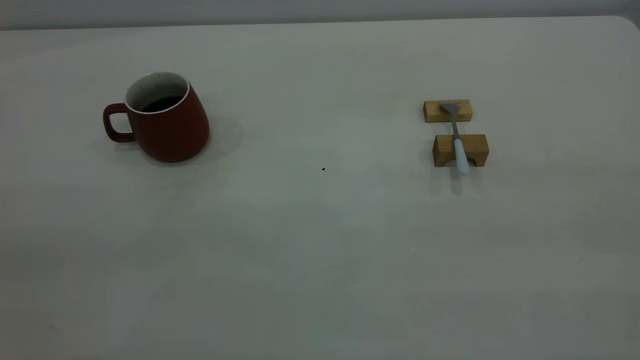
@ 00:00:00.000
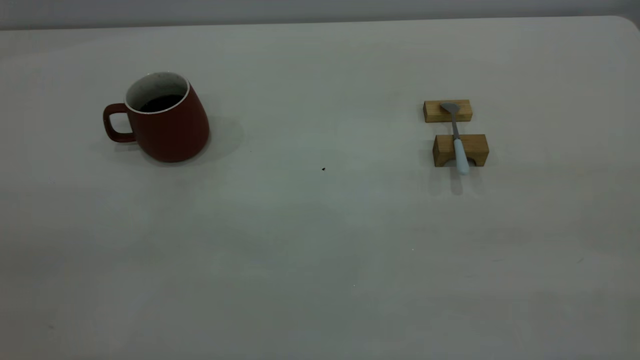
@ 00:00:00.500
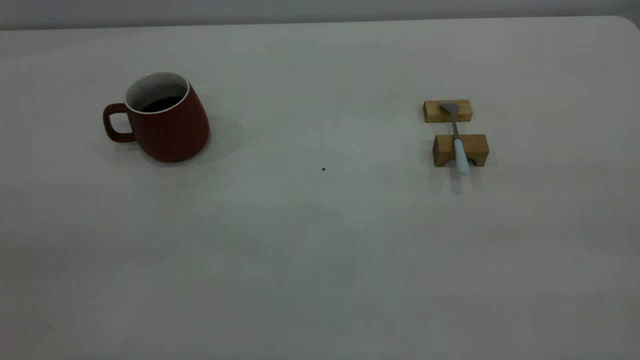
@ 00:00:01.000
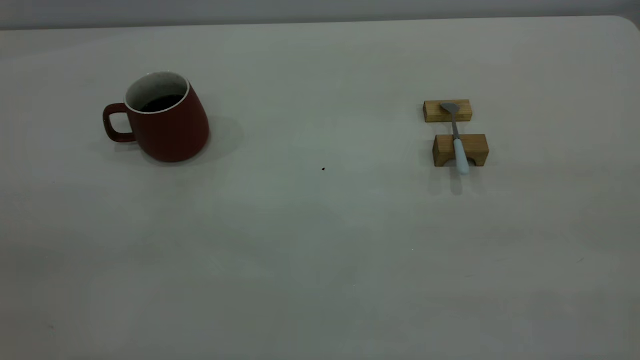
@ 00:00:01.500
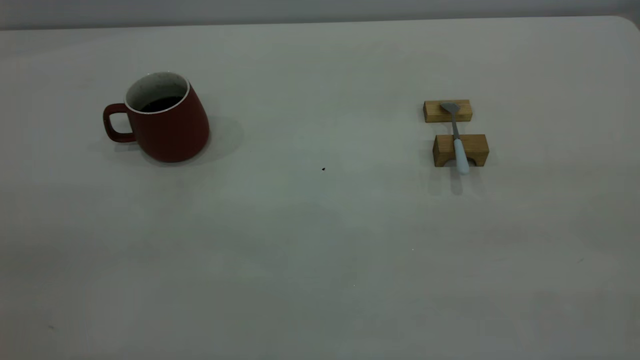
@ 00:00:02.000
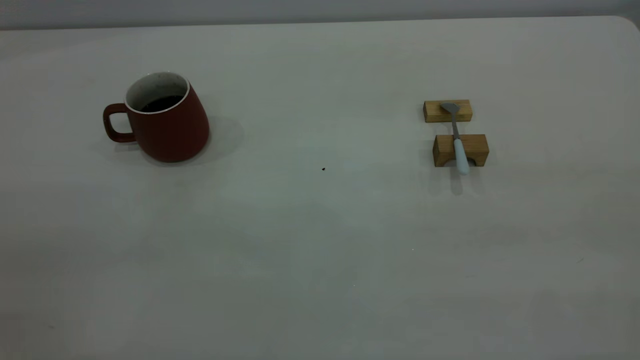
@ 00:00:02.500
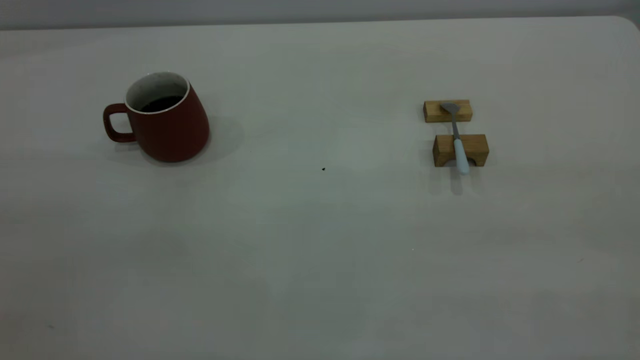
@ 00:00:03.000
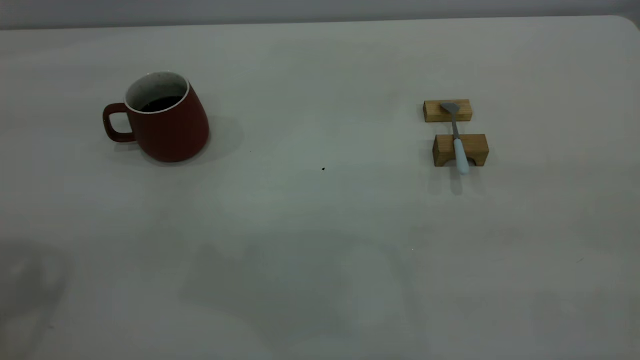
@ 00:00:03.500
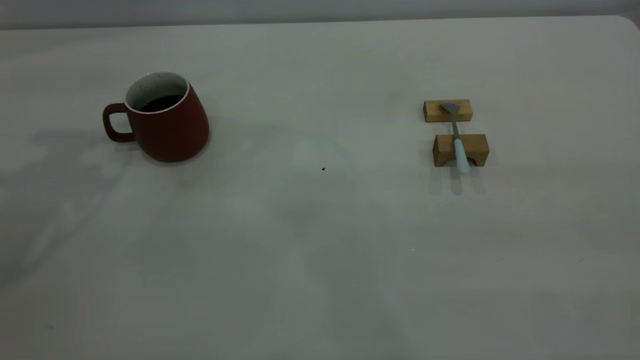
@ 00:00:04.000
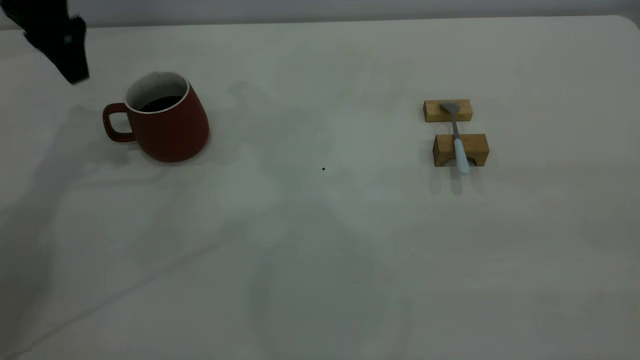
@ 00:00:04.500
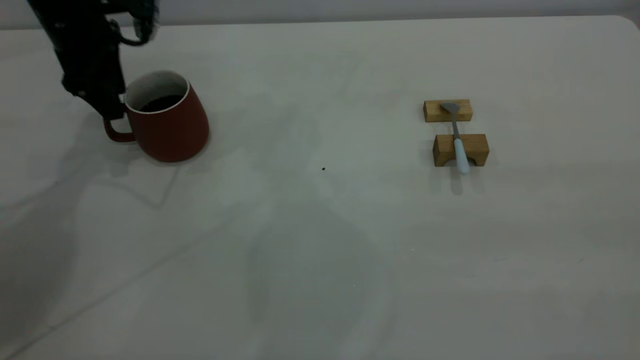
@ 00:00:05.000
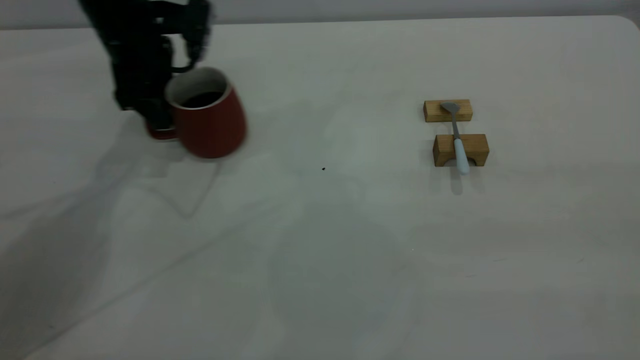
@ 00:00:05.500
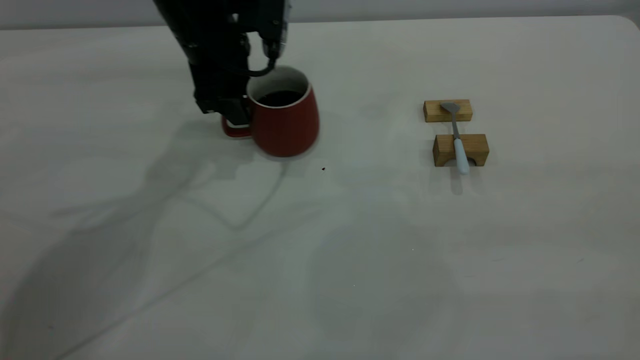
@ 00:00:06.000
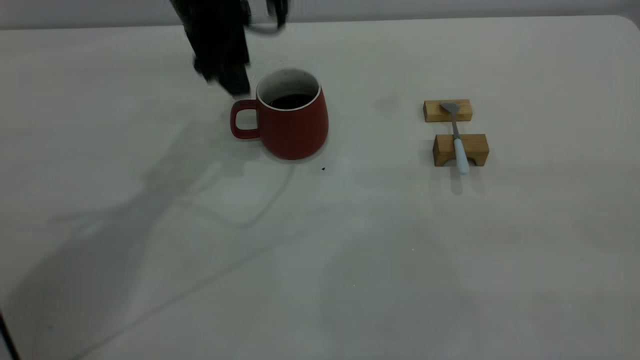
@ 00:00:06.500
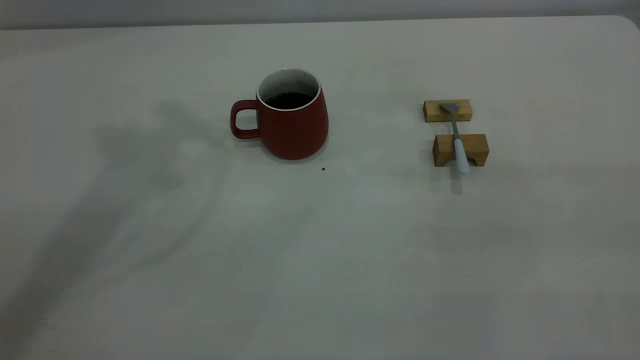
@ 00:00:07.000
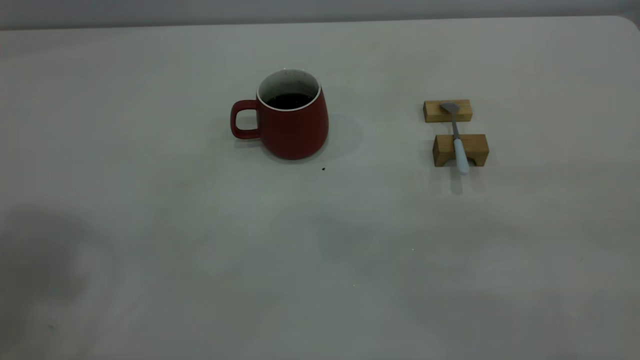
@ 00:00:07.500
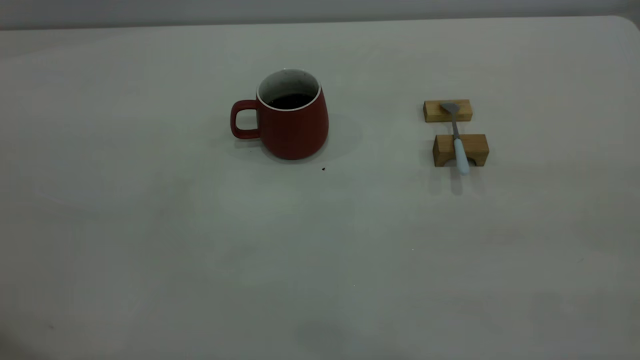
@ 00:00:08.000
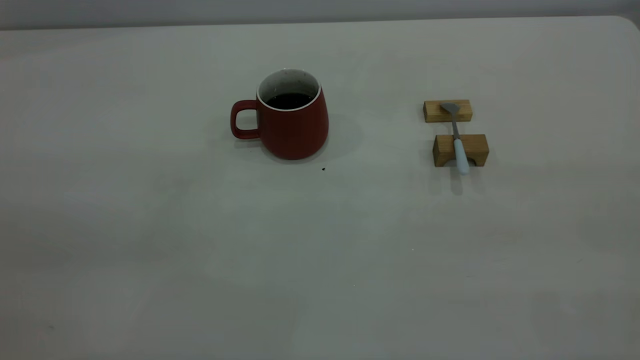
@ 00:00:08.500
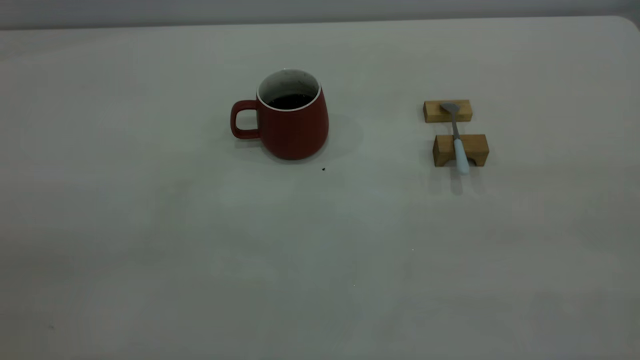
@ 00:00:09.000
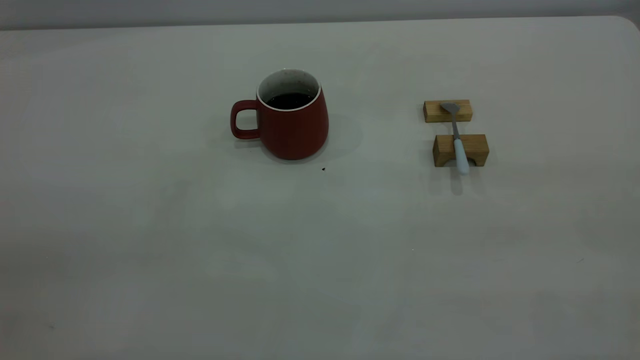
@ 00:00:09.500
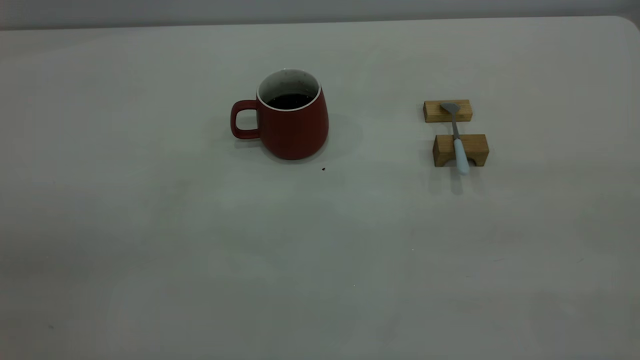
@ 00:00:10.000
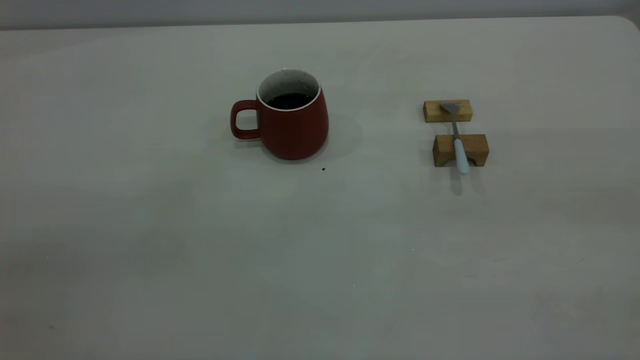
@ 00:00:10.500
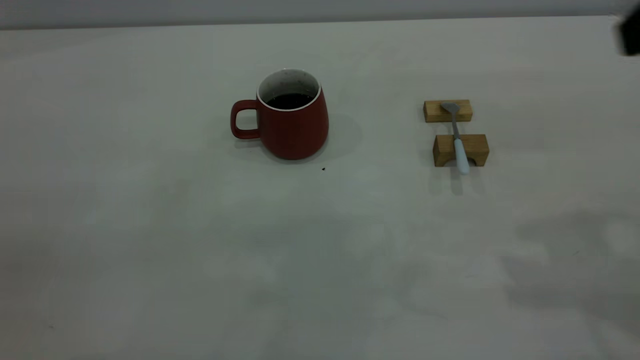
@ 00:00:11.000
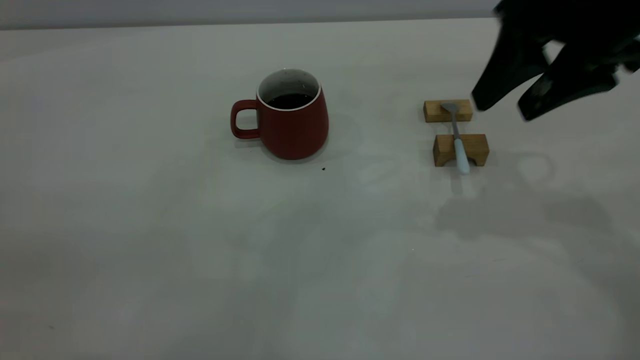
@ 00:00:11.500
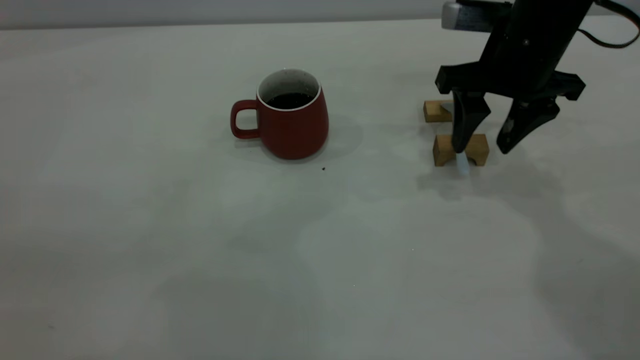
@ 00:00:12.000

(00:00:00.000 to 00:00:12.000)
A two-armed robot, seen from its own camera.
Step, 00:00:00.000 - 00:00:06.500: Move the cup with coffee to the center of view.
00:00:00.000 - 00:00:02.000: The two grippers keep their place.
00:00:04.000 - 00:00:06.000: The left gripper goes some 25 cm to the right, downward and forward.
00:00:06.000 - 00:00:08.000: The left gripper moves backward and upward, about 40 cm.
00:00:10.000 - 00:00:12.000: The right gripper is displaced forward and downward by roughly 40 cm, and opens.

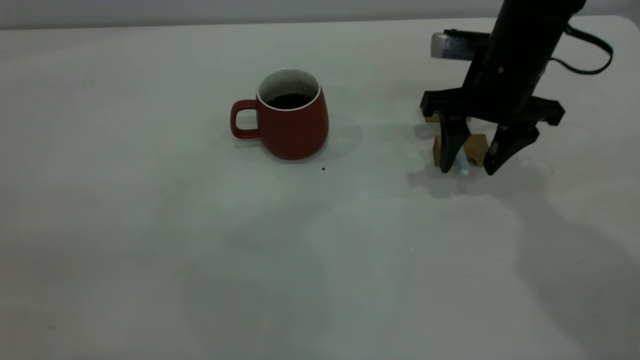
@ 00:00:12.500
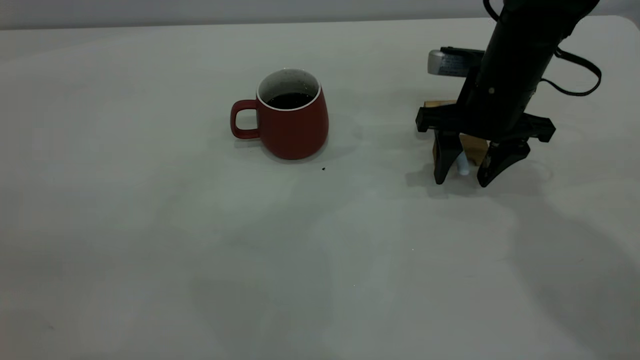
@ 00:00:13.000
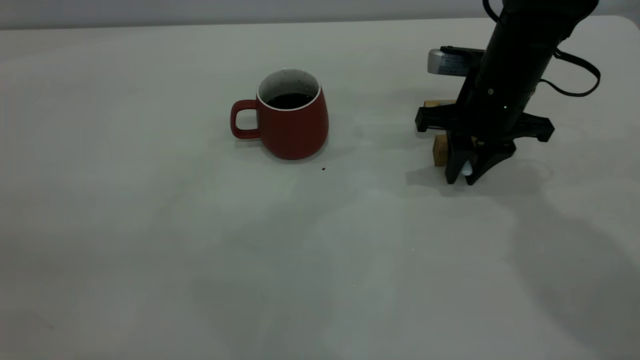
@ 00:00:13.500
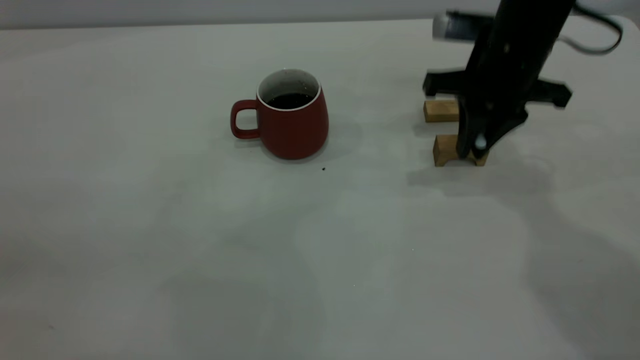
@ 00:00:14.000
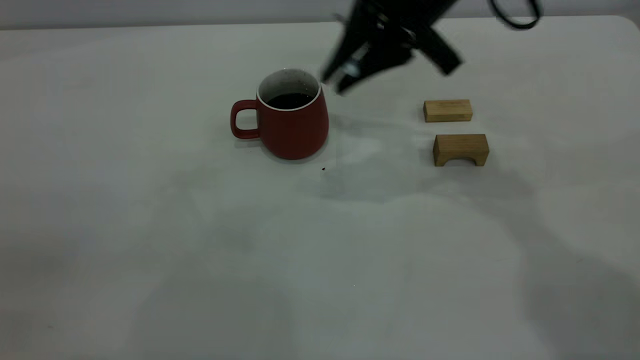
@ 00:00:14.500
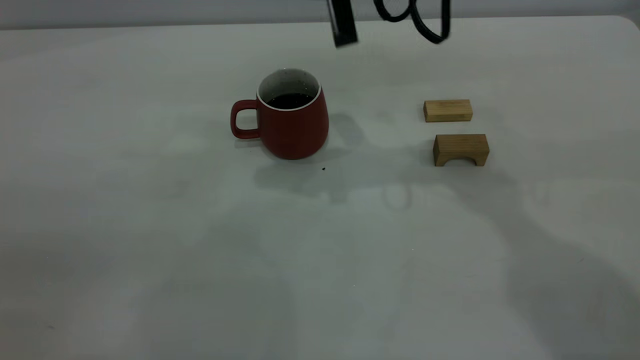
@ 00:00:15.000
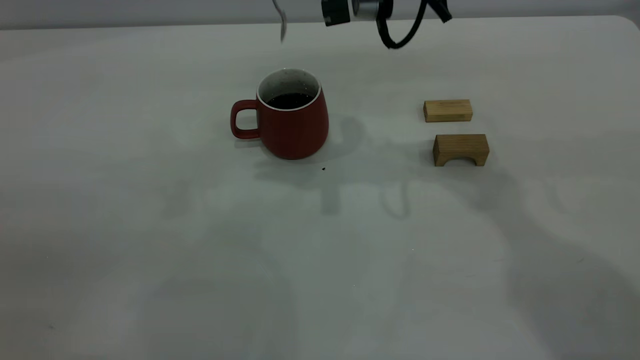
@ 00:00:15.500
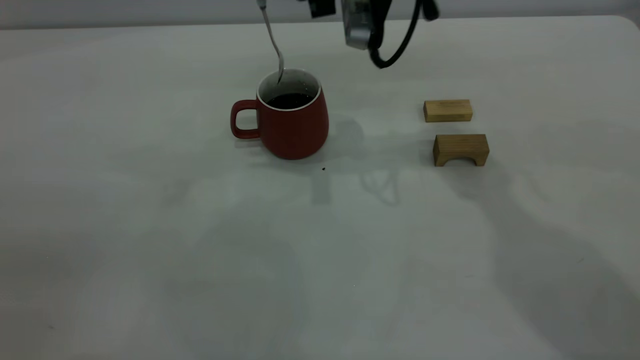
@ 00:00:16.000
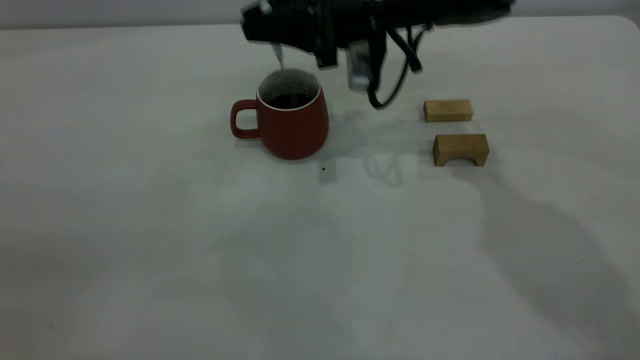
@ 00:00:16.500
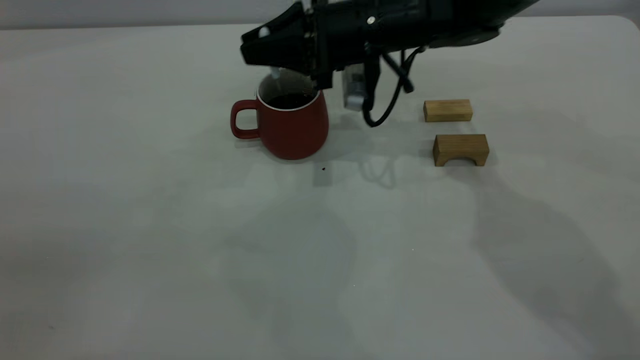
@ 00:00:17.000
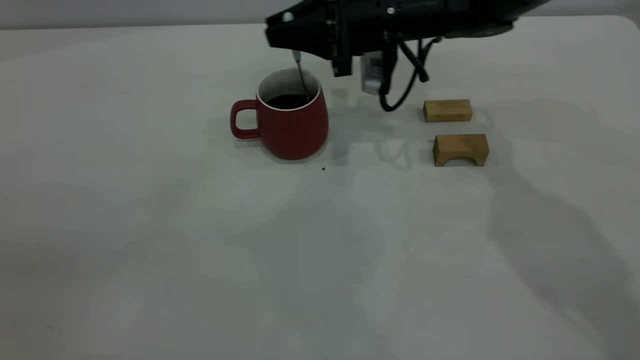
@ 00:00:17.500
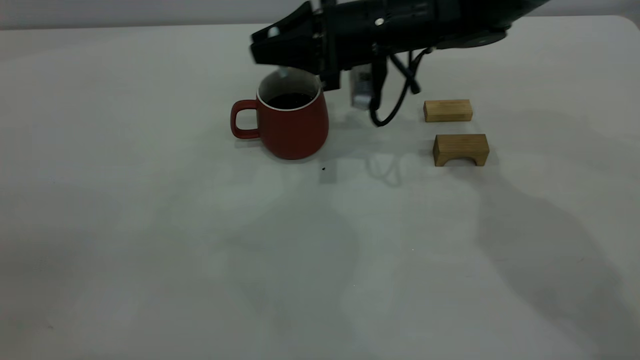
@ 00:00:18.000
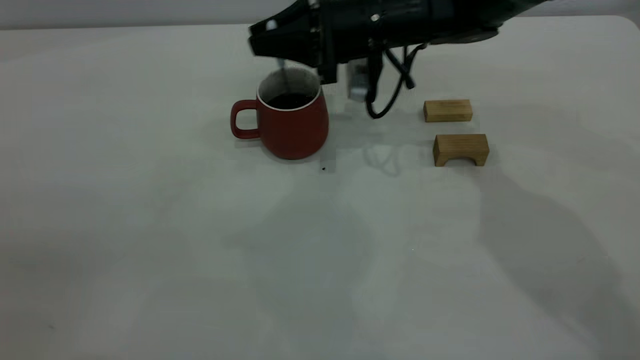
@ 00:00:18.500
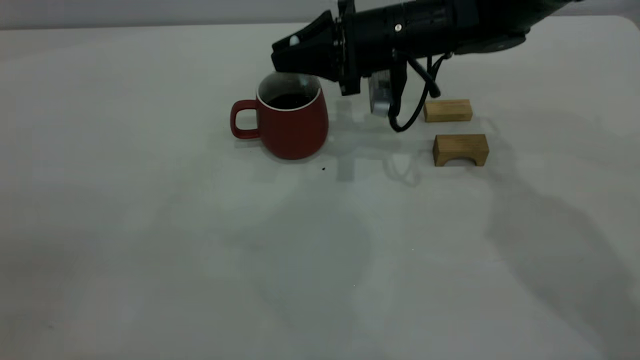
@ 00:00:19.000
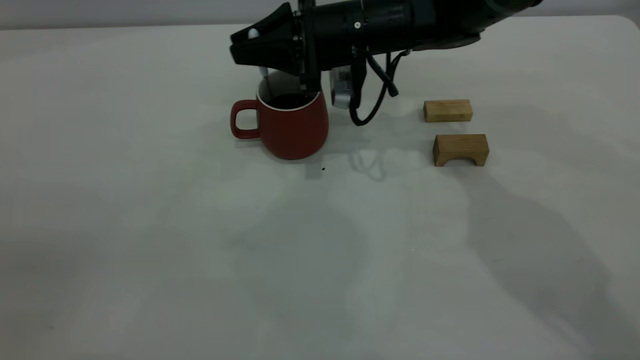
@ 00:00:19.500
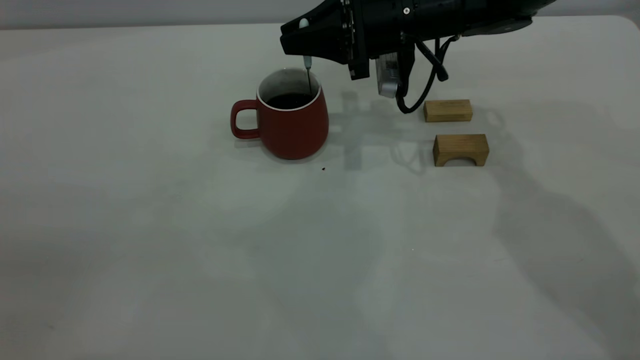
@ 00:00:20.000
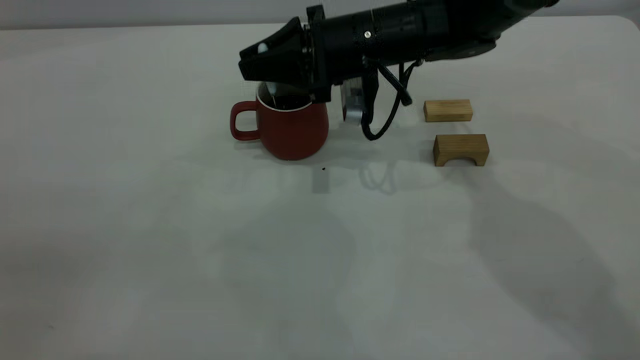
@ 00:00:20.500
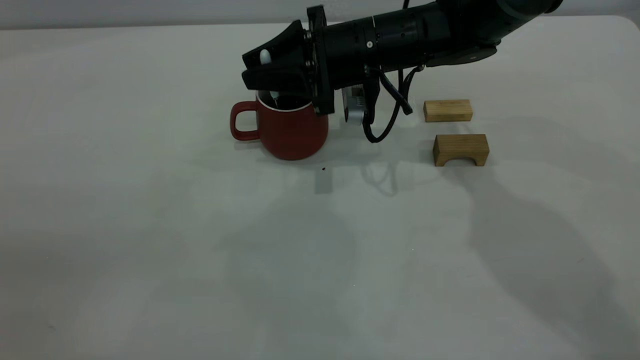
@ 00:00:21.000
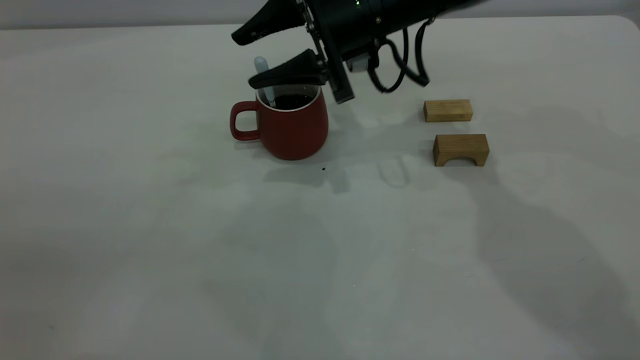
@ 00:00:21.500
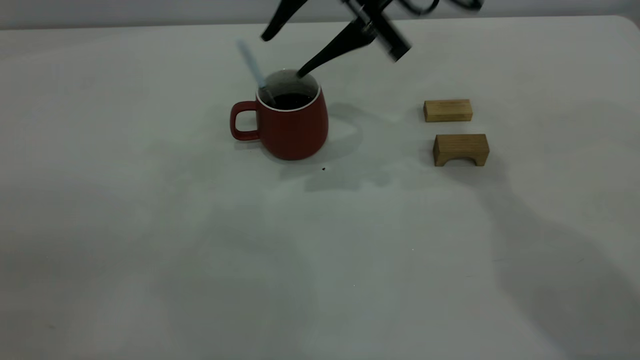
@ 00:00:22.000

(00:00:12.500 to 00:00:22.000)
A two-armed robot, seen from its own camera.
Step, 00:00:14.500 - 00:00:21.500: Stir the coffee in the cup.
00:00:12.500 - 00:00:14.500: The right gripper travels upward and to the left by roughly 15 cm, and closes up.
00:00:14.500 - 00:00:16.500: The right gripper is displaced downward and forward by roughly 10 cm.
00:00:16.500 - 00:00:20.000: The grippers make only small movements.
00:00:20.000 - 00:00:22.000: The right gripper travels upward by roughly 10 cm, and opens.
